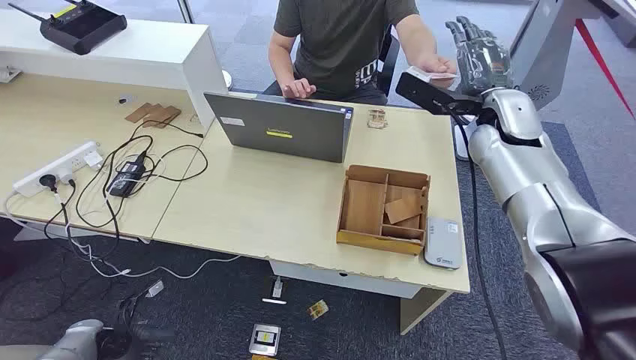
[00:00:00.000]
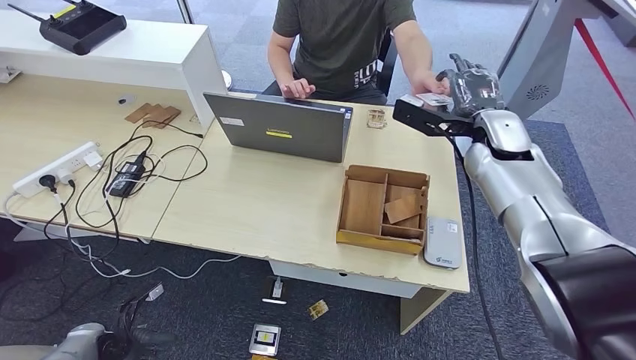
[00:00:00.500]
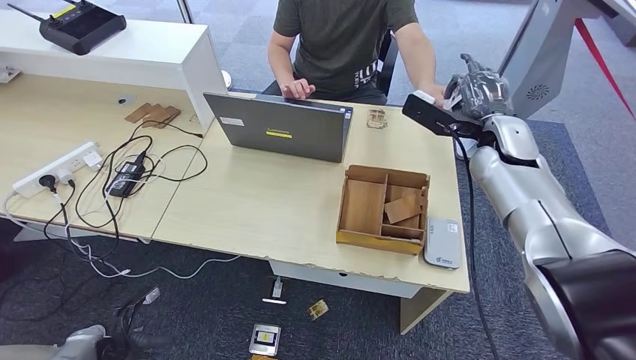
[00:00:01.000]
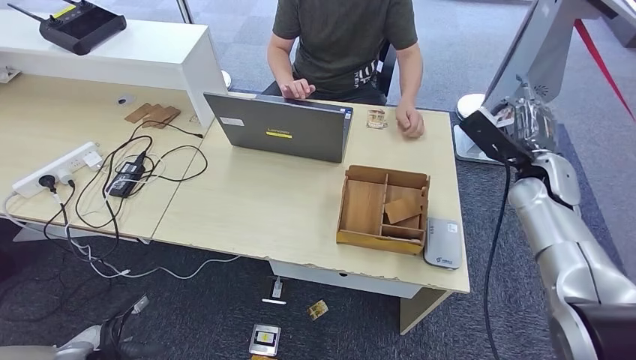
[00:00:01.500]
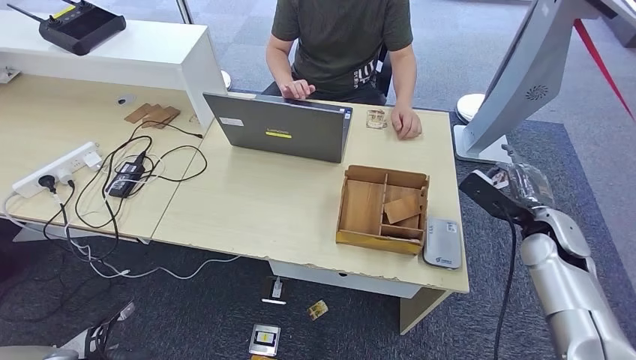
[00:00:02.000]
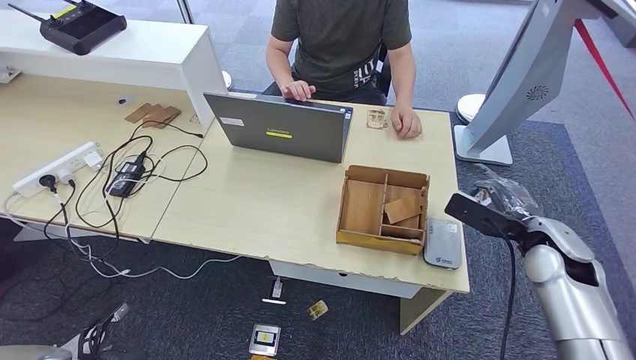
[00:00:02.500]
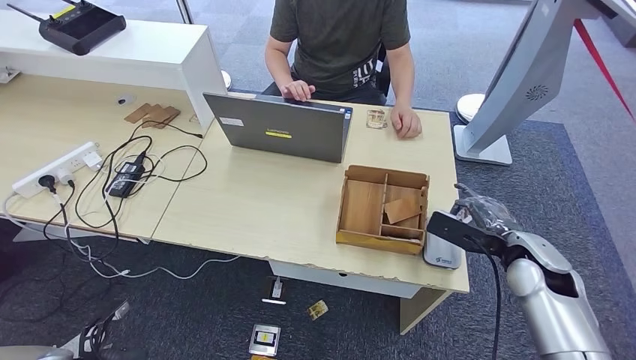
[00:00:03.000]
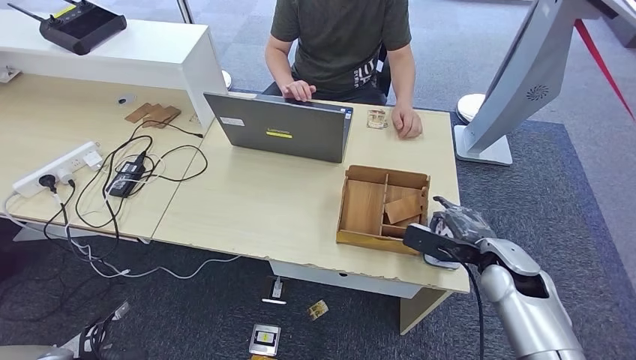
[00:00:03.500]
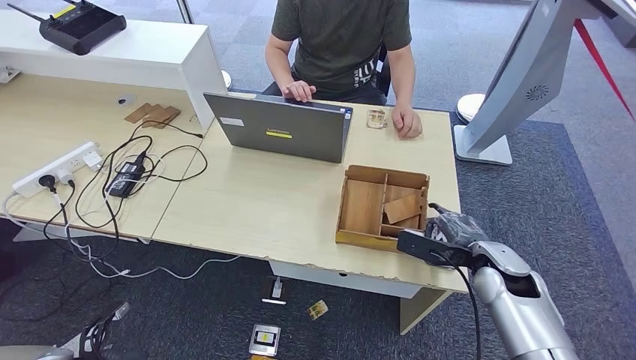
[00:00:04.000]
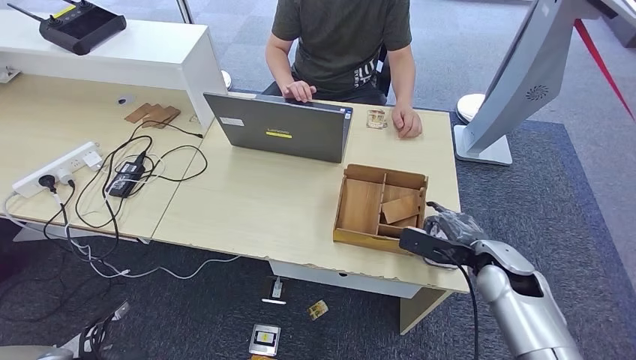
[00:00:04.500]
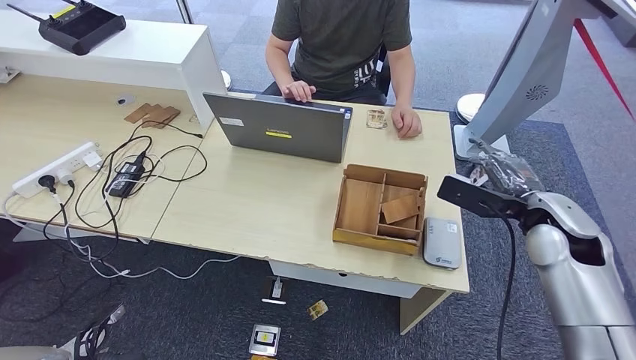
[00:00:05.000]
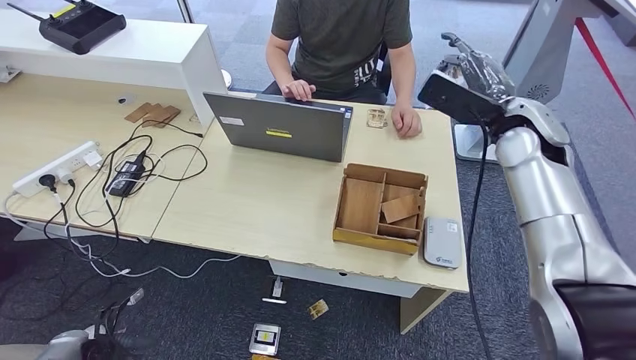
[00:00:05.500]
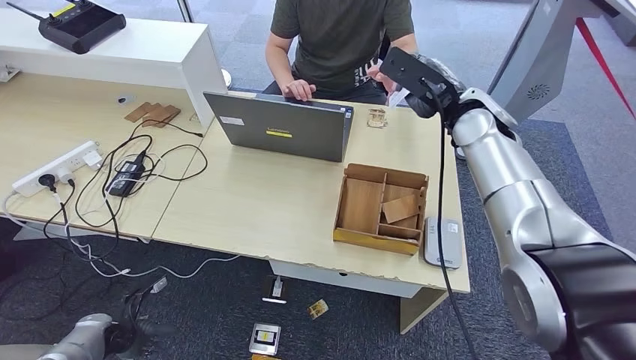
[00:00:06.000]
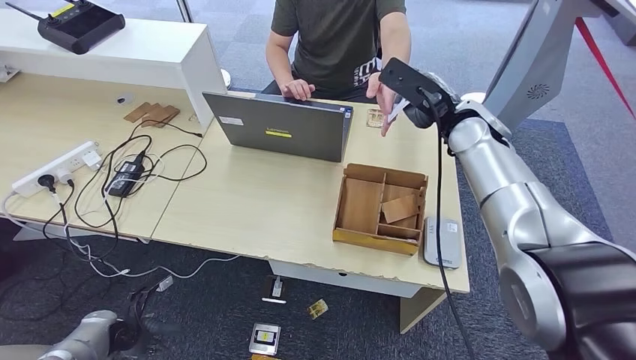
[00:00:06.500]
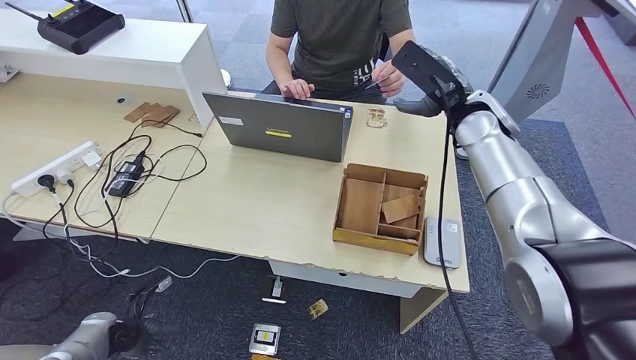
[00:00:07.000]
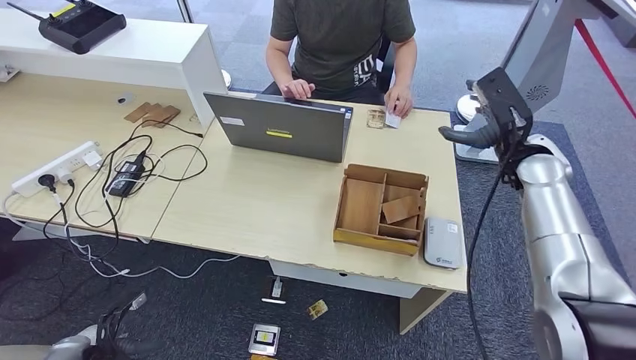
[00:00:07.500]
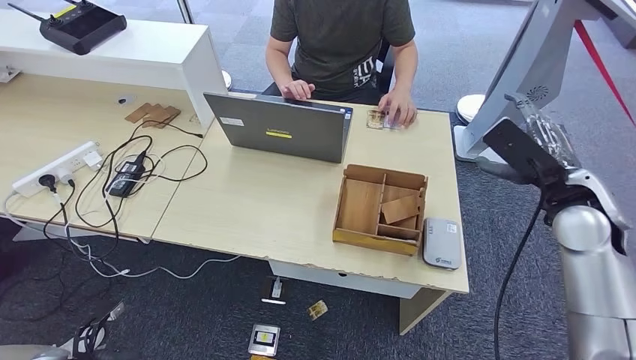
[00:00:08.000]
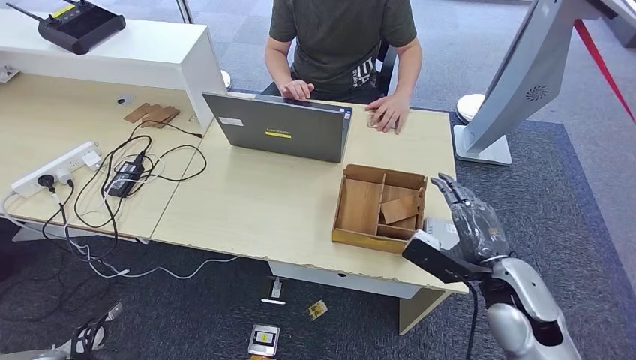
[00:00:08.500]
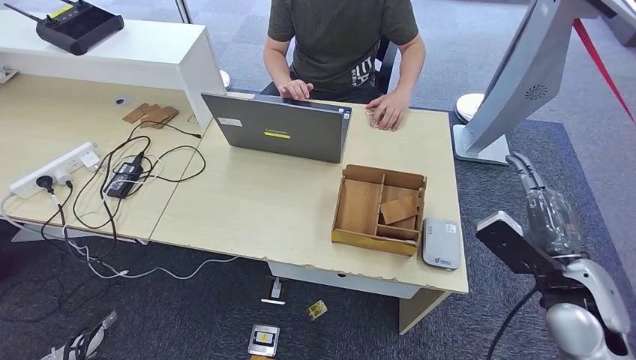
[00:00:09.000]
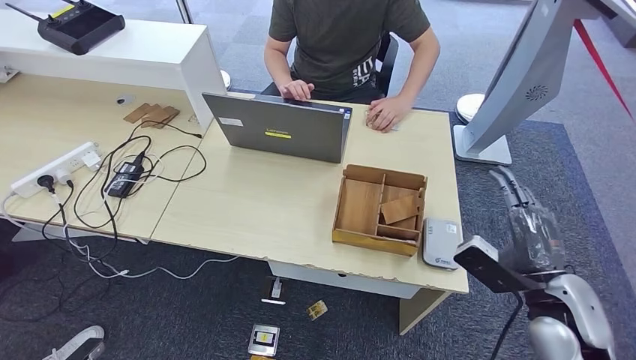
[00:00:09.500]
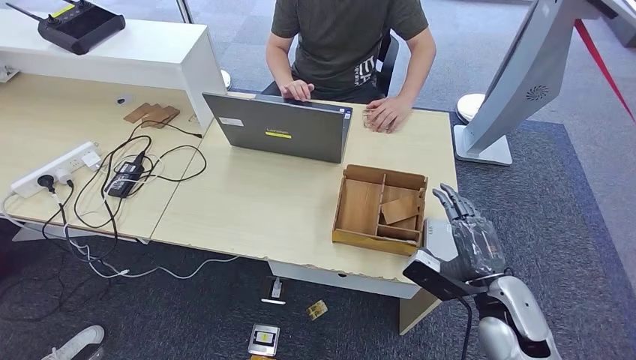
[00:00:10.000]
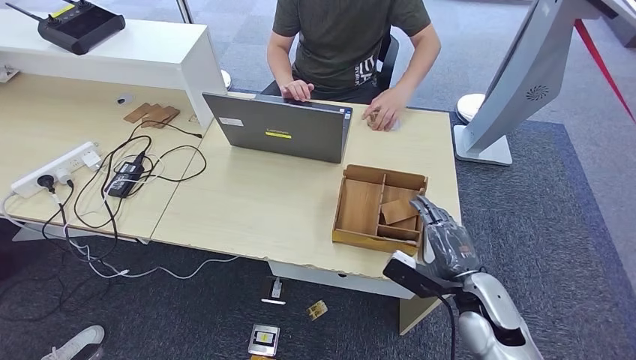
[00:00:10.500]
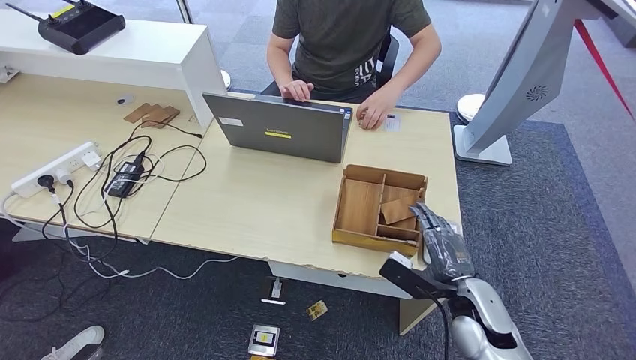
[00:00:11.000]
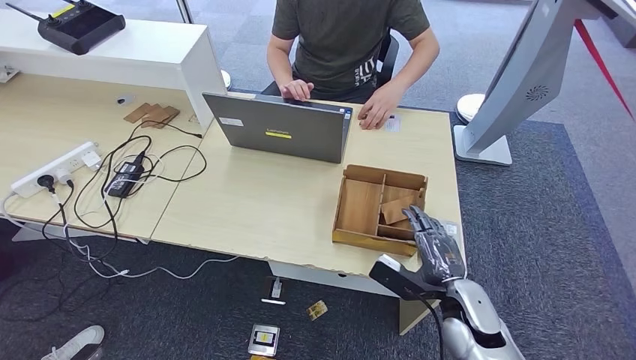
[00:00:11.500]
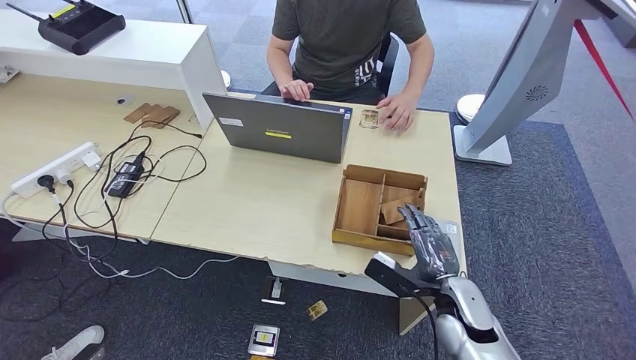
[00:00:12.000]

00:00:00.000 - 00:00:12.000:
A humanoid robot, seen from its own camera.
Step, 00:00:00.000 - 00:00:02.000: Take the ID card from the person's hand.
Step, 00:00:02.500 - 00:00:04.000: Place the ID card on the card reader.
Step, 00:00:04.500 - 00:00:07.000: Hand the ID card to the person.
00:00:02.000 - 00:00:04.000: The right hand is displaced to the left and backward by roughly 10 cm.
00:00:04.000 - 00:00:06.000: The left hand goes roughly 10 cm forward and to the right. The right hand travels upward and forward by approximately 25 cm.
00:00:06.000 - 00:00:08.000: The left hand moves backward and to the left, roughly 10 cm, while the right hand goes about 15 cm to the right, backward and downward.
00:00:08.000 - 00:00:10.000: The left hand heads backward, covering roughly 10 cm. The right hand travels downward, backward and to the left by some 20 cm.
00:00:10.000 - 00:00:12.000: The right hand travels downward by about 5 cm.

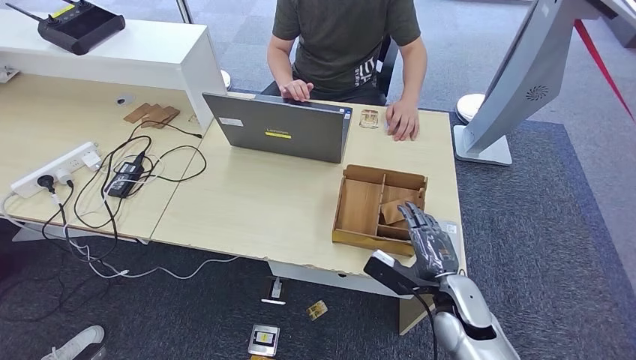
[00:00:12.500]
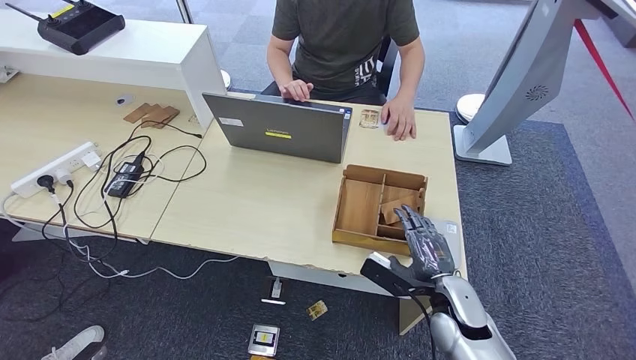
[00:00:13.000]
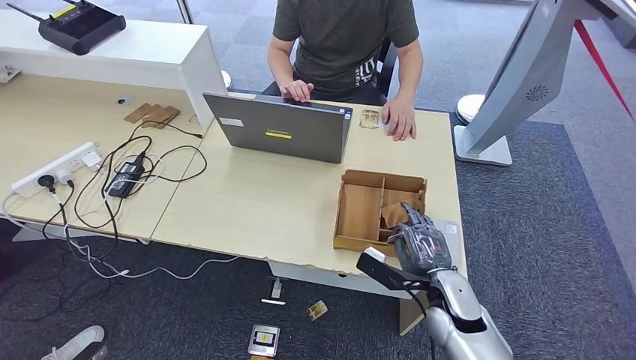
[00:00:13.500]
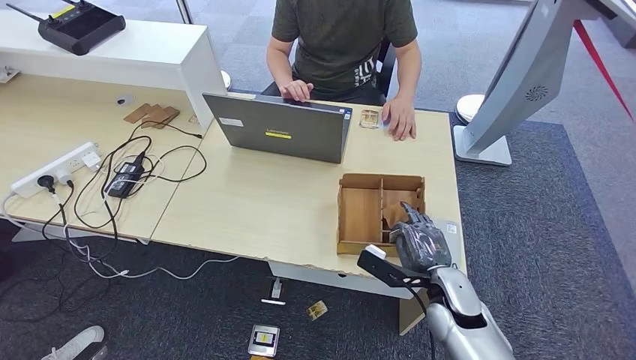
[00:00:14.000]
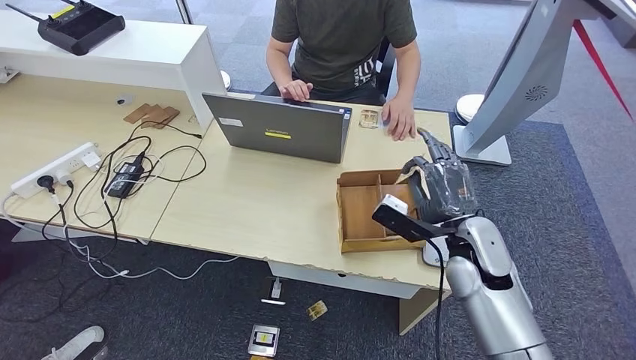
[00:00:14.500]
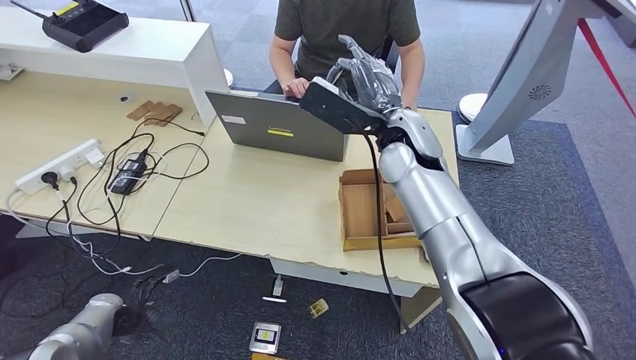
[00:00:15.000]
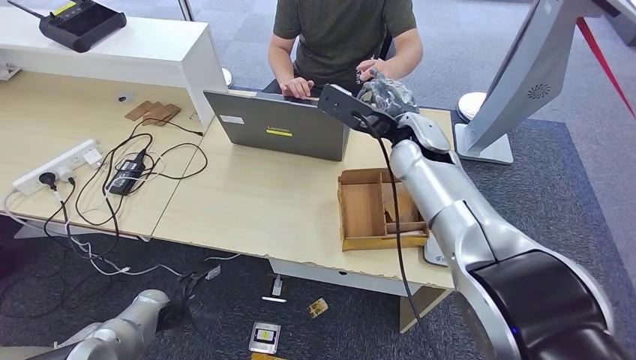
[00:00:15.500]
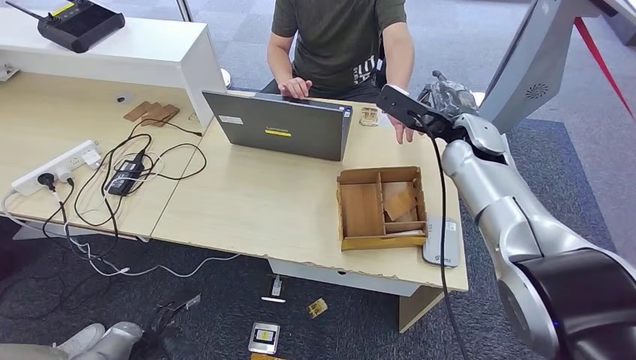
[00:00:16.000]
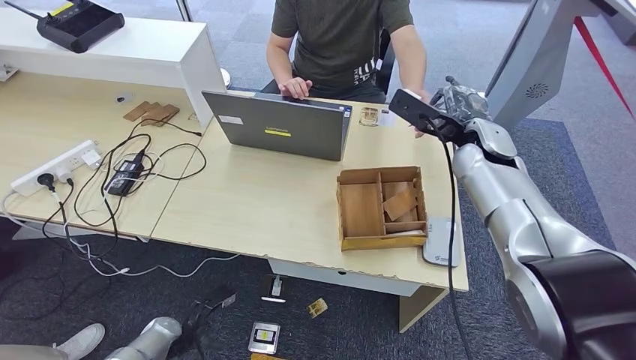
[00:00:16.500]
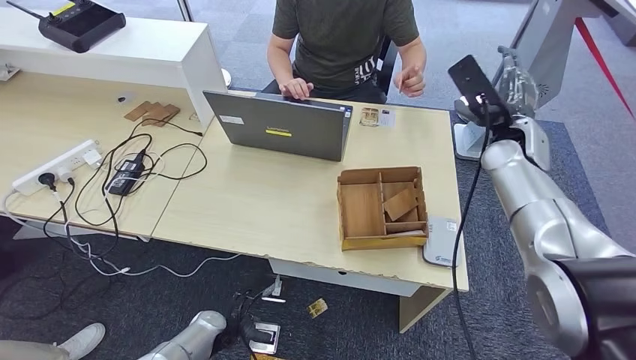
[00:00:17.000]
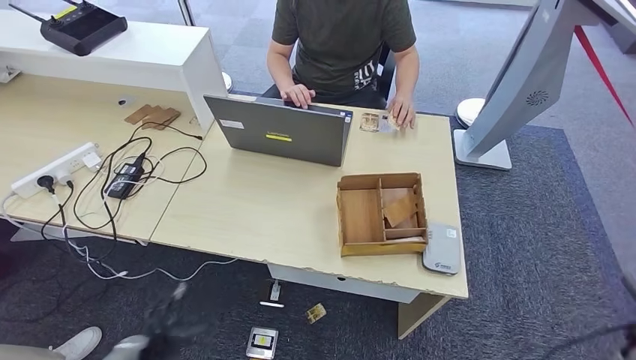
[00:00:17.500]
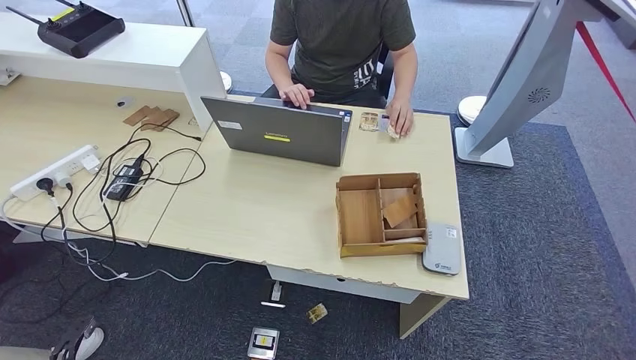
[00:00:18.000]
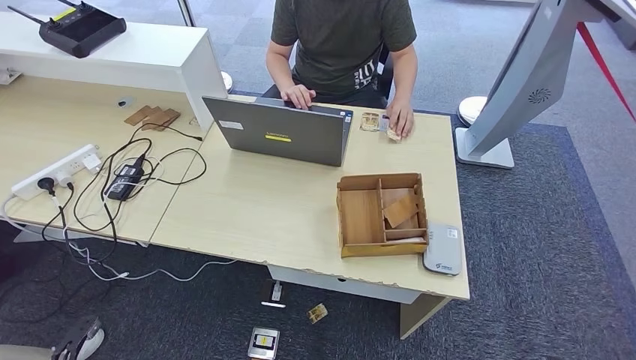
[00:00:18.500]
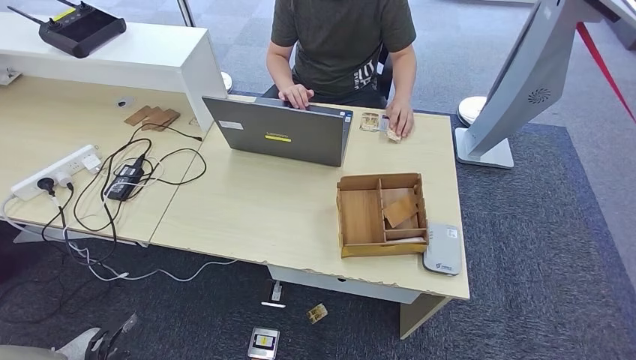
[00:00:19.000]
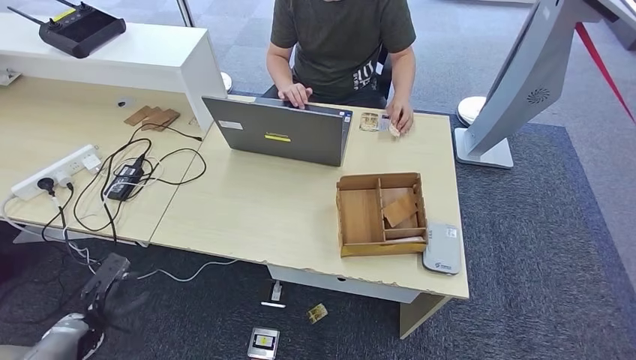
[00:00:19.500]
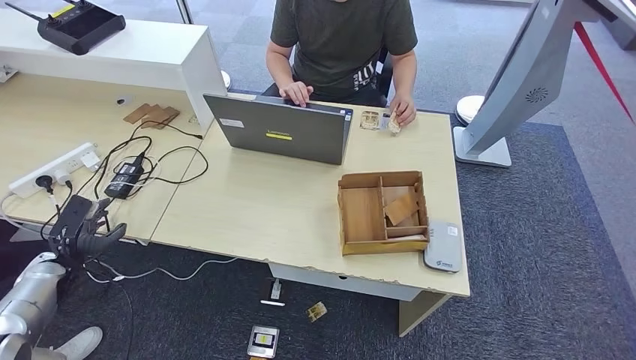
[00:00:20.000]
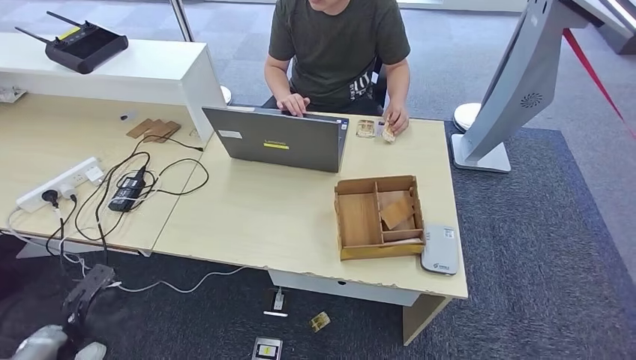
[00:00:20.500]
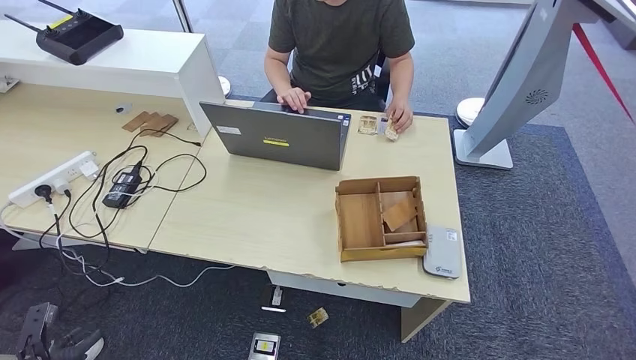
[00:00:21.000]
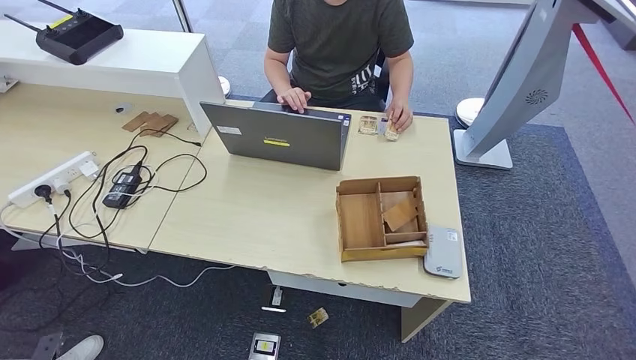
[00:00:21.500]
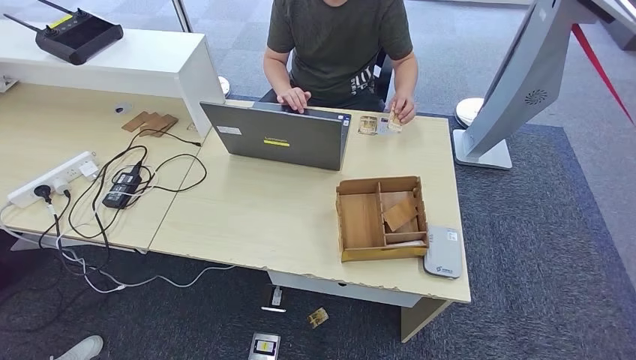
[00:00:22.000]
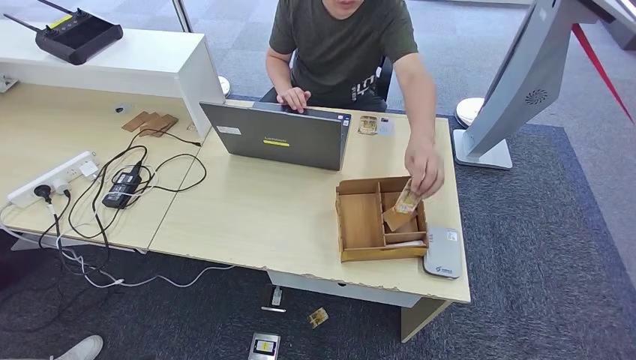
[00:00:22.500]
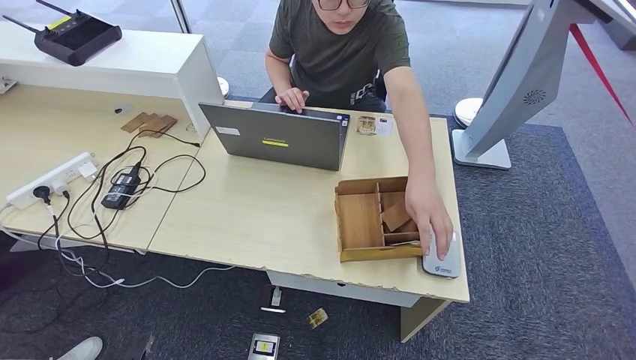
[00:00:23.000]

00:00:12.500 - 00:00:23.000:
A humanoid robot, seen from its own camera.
Step, 00:00:12.500 - 00:00:14.500: Pick up the room key from the key card box.
Step, 00:00:15.000 - 00:00:23.000: Hand the room key to the person.
00:00:12.500 - 00:00:14.500: The right hand heads upward and forward, covering about 10 cm.
00:00:19.000 - 00:00:21.000: The left hand travels forward and back again, approximately 15 cm each way.
00:00:21.000 - 00:00:23.000: The left hand travels to the right and downward by roughly 15 cm.
